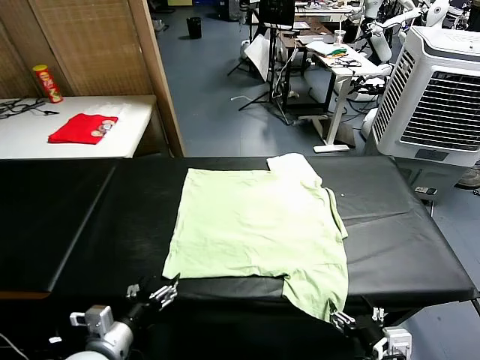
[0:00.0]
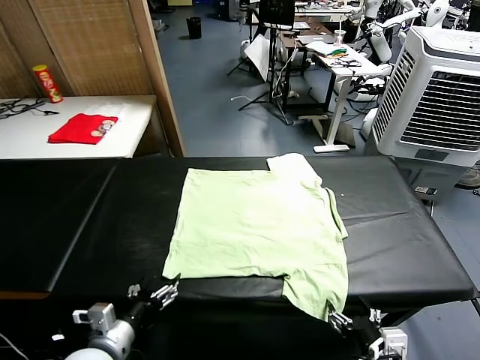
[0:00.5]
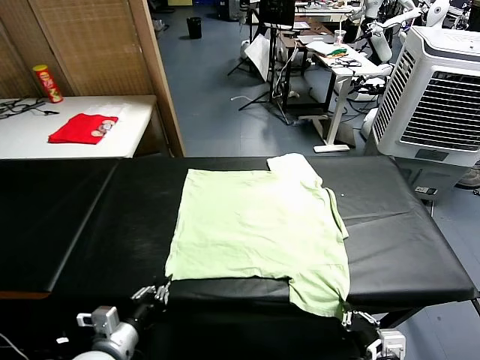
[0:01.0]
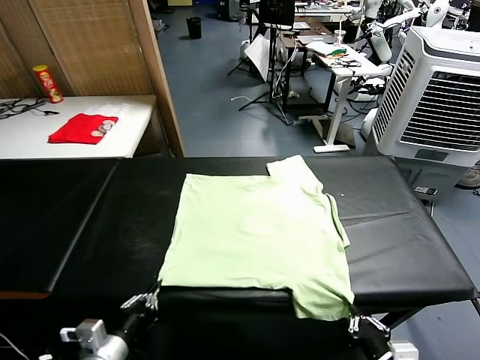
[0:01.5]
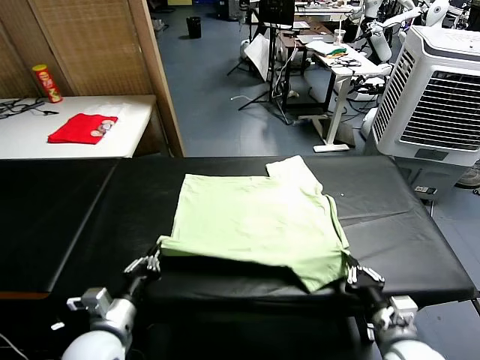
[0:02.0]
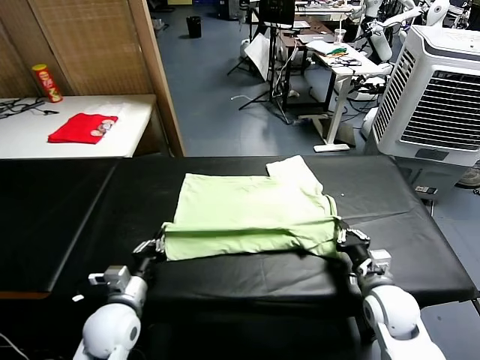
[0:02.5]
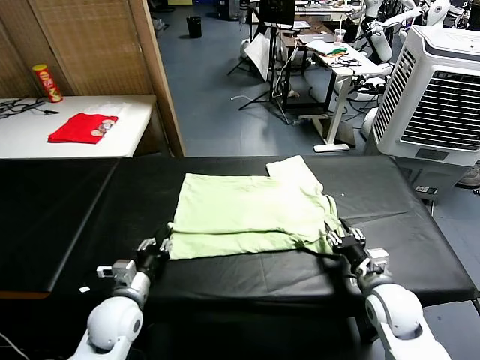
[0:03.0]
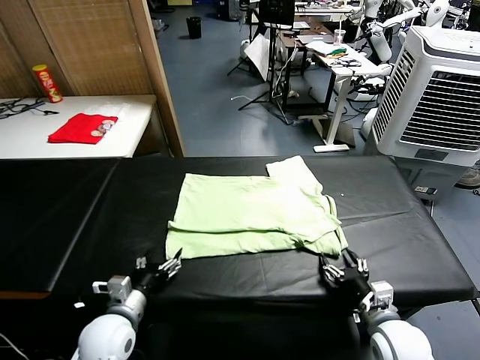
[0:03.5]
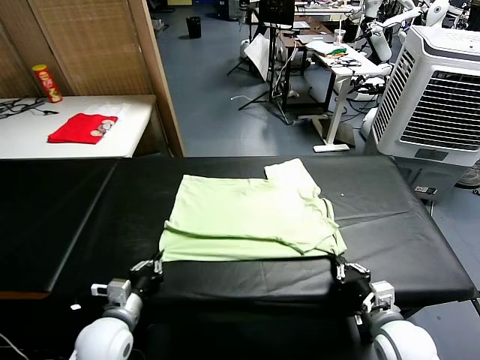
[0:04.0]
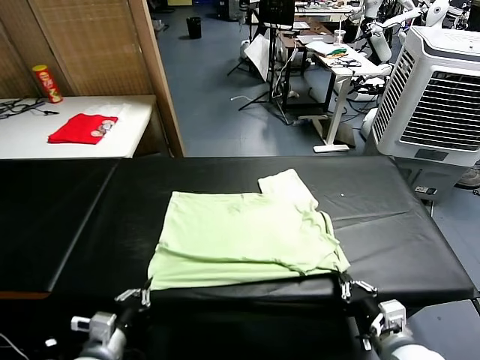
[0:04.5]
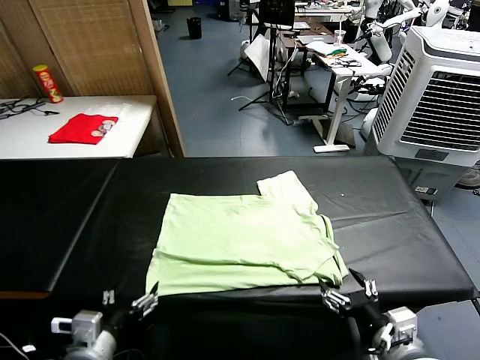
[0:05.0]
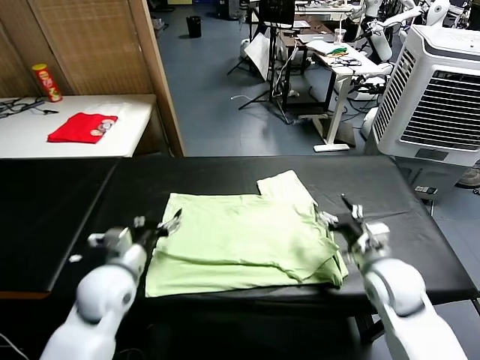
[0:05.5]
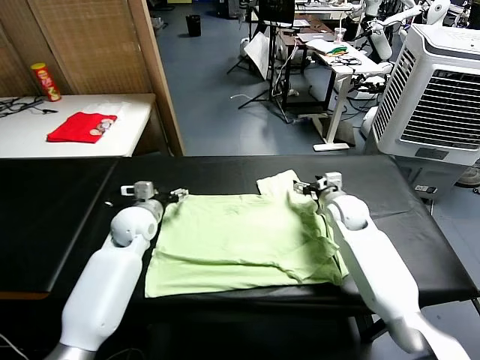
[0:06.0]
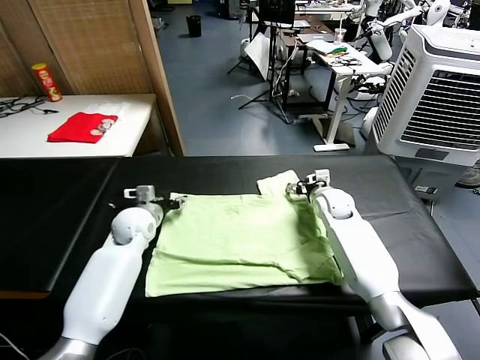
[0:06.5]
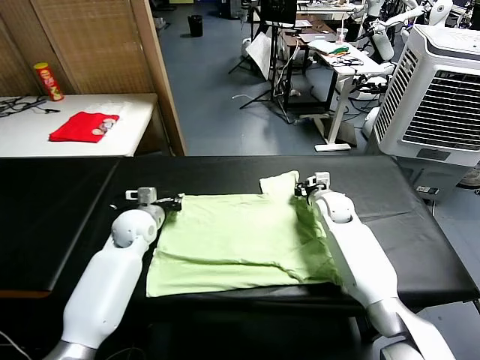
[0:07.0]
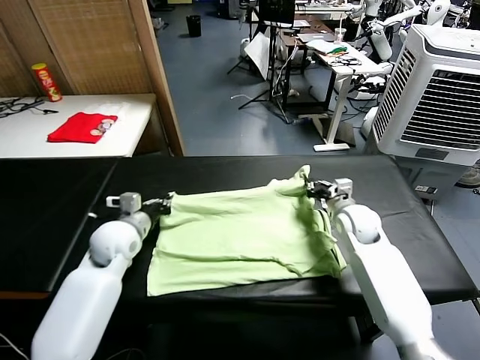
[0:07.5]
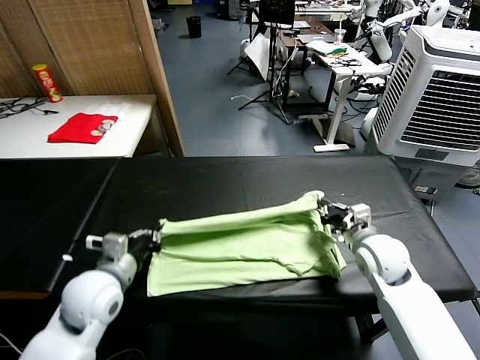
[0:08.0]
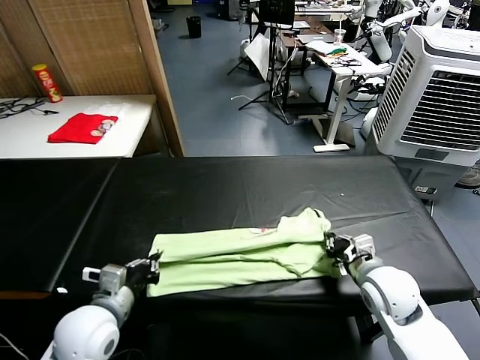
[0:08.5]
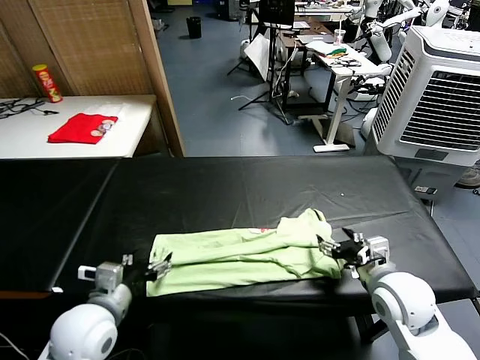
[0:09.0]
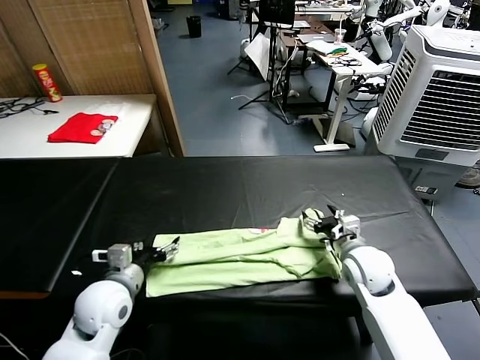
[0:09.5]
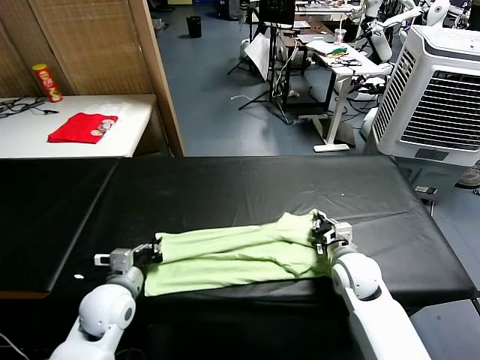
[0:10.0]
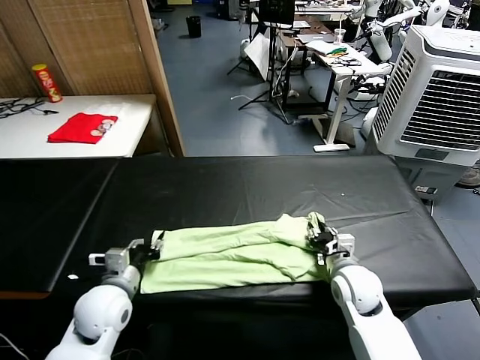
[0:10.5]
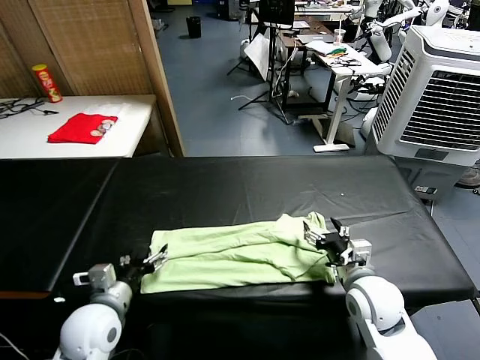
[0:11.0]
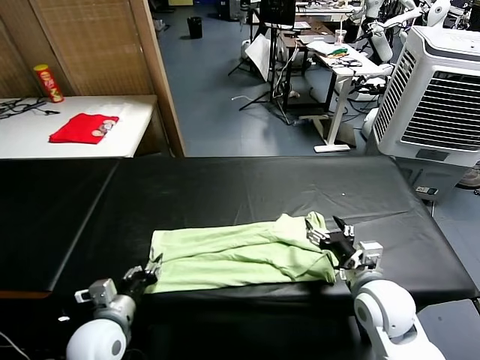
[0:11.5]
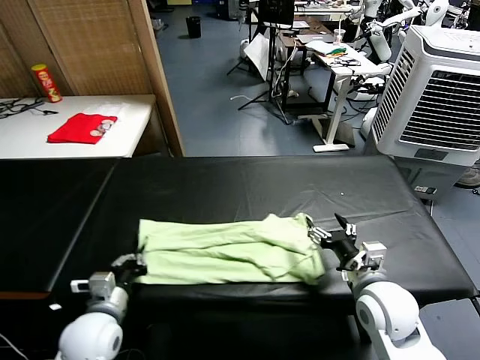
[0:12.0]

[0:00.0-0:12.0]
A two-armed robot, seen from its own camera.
Task of the whole recording: fold and organize the clothes.
Step, 0:00.0 to 0:01.0: use both grippers simultaneously to clamp the lower edge of the clothing fabric.
Step, 0:01.5 to 0:03.0: use both grippers to drag the lower edge of the fabric forward and fold it over the upper edge.
Step, 0:03.5 to 0:04.5: Drag the clothes downward with both gripper.
Step, 0:05.0 to 0:06.5: use both grippers simultaneously to clamp the upper edge of the clothing fabric.
Step, 0:07.0 to 0:08.5: use both grippers to drag the upper edge of the fabric backward and fold it over the lower edge.
Step, 0:09.5 to 0:11.5: use the left gripper to clamp the left edge of the fabric.
0:02.0 to 0:04.0: The left gripper shifts by approximately 5 cm, and opens and closes again. Meanwhile the right gripper opens, then closes once more.
0:04.0 to 0:06.0: The two grippers go roughly 30 cm forward. The right gripper opens its fingers. Meanwhile the left gripper opens its fingers.
0:06.0 to 0:08.0: The two grippers go approximately 20 cm backward. The right gripper closes up; the left gripper closes up.
0:08.0 to 0:10.0: The grippers both shift downward by roughly 5 cm. The left gripper opens and closes again; the right gripper opens and closes again.
0:10.0 to 0:12.0: The left gripper heads backward, covering approximately 5 cm, and opens, then closes again; the right gripper is displaced backward and upward by some 10 cm, and opens.

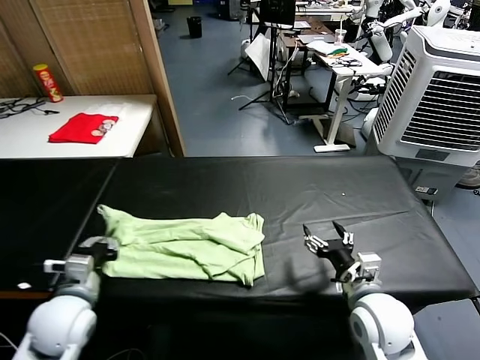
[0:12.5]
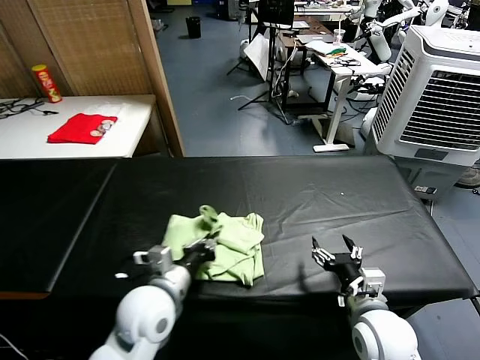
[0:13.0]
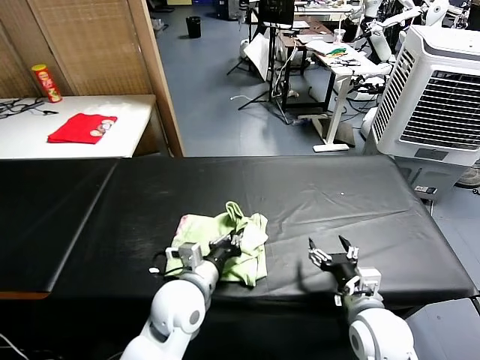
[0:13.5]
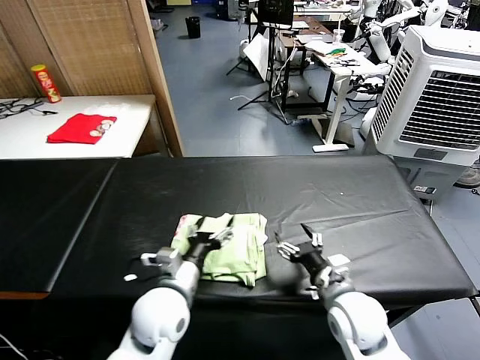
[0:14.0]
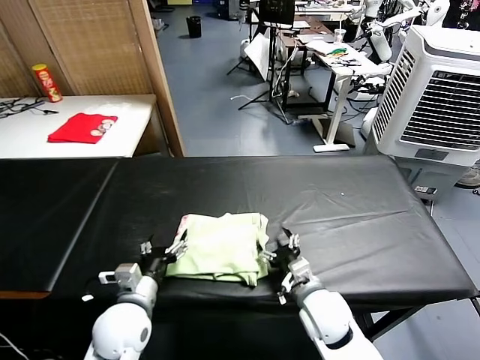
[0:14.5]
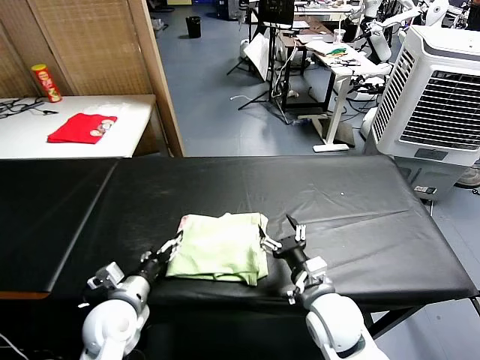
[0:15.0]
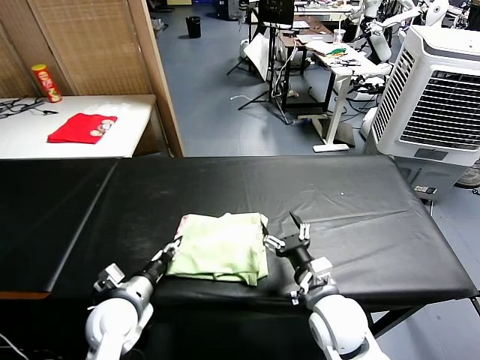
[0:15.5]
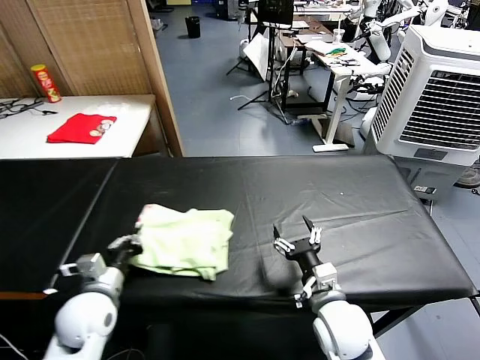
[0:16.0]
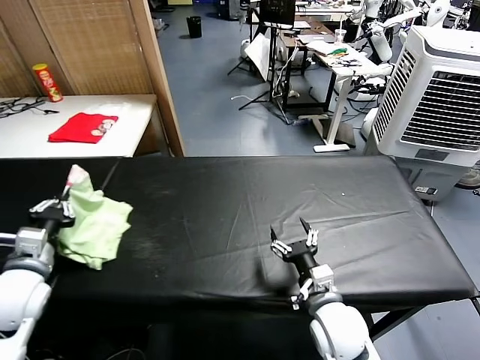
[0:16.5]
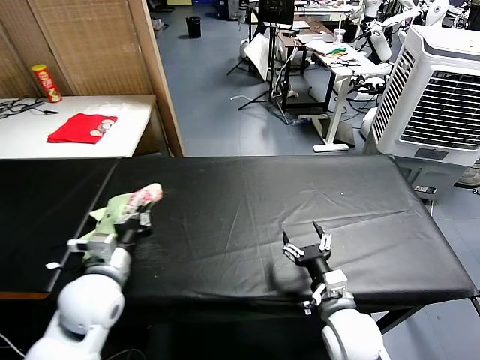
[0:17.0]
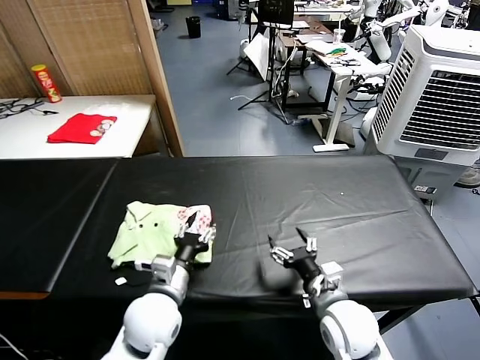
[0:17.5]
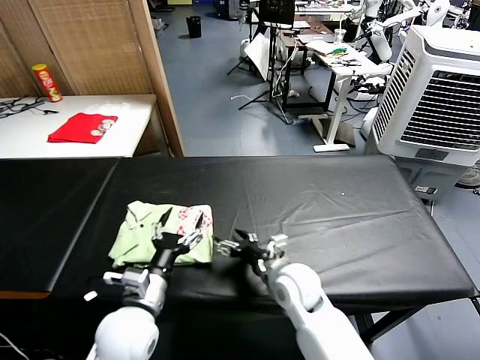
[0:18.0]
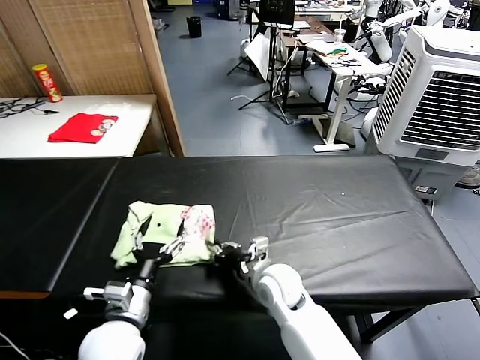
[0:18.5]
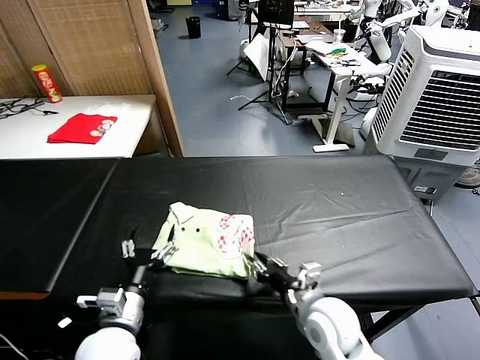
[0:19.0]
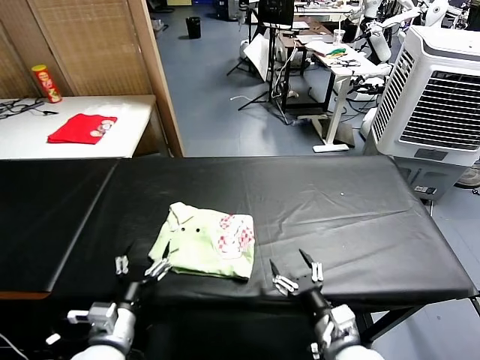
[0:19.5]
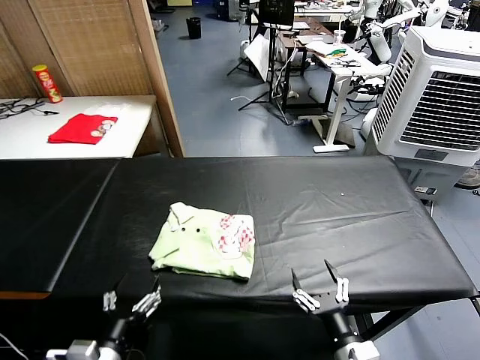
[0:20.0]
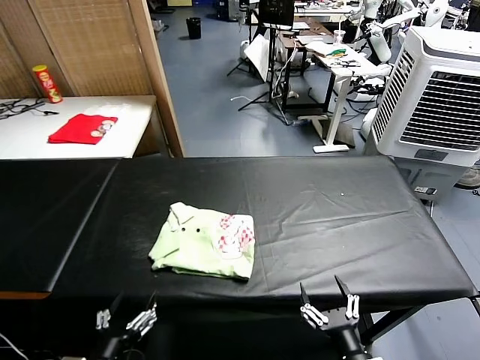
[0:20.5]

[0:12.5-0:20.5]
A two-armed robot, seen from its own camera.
Task of the whole recording: fold and organize the clothes.
Step, 0:14.0 to 0:17.0: Flip the folded clothes over with left gripper.
Step, 0:18.0 to 0:19.0: Drag the clothes to the center of the table.
0:12.5 to 0:14.5: The left gripper travels to the right by about 10 cm, and opens its fingers; the right gripper is displaced to the left and downward by roughly 10 cm.
0:14.5 to 0:16.5: The left gripper travels to the left and upward by some 20 cm, and closes up.
0:16.5 to 0:18.5: The right gripper goes roughly 15 cm to the left and forward, and closes up. Meanwhile the left gripper goes some 20 cm to the right and downward, and opens its fingers.
0:18.5 to 0:20.5: The left gripper heads backward, covering about 15 cm; the right gripper travels backward and to the right by approximately 30 cm, and opens its fingers.

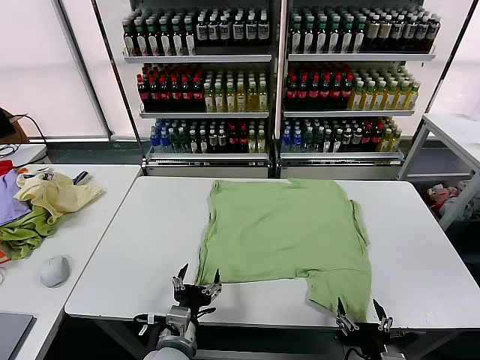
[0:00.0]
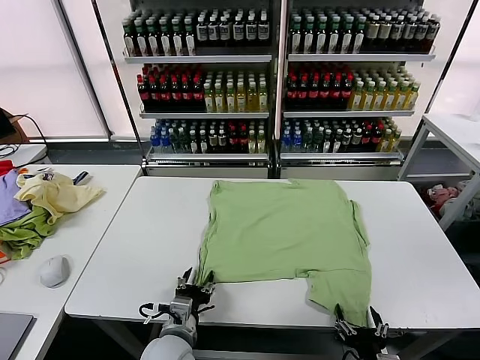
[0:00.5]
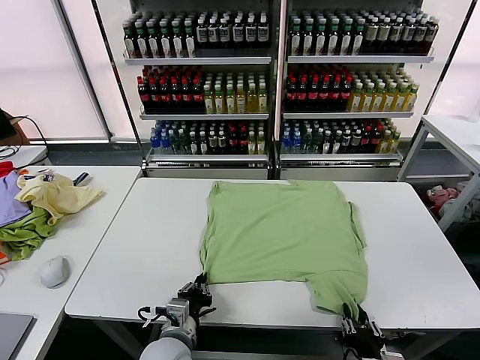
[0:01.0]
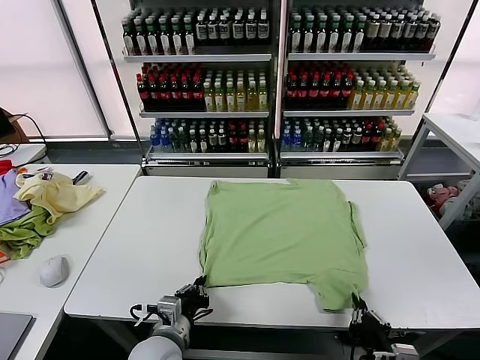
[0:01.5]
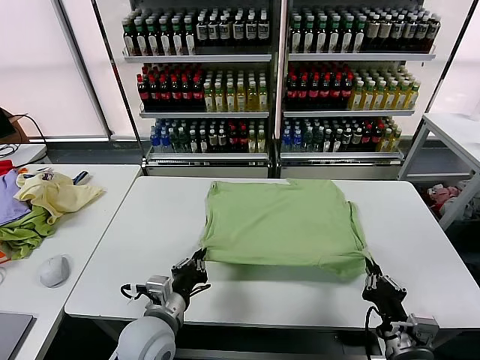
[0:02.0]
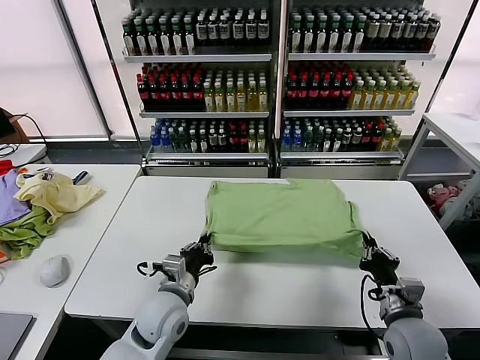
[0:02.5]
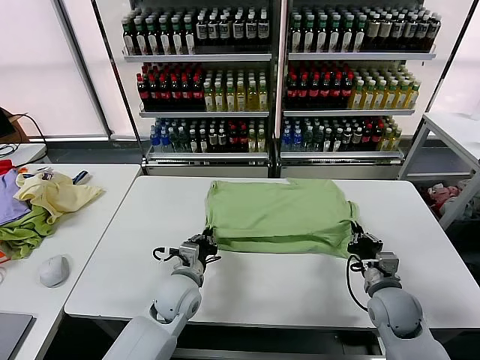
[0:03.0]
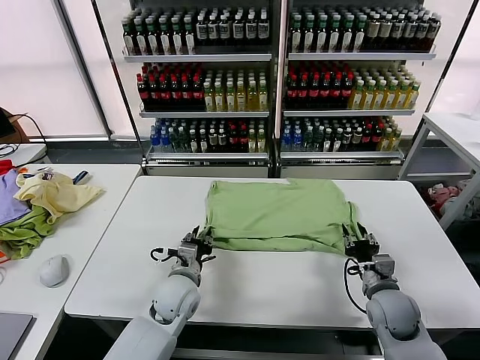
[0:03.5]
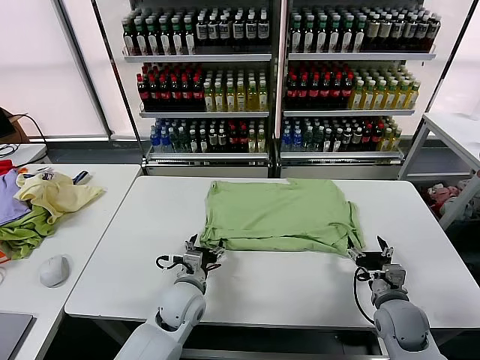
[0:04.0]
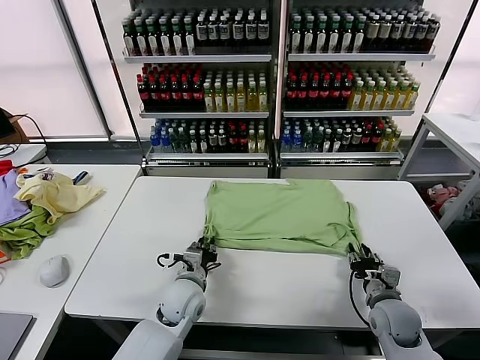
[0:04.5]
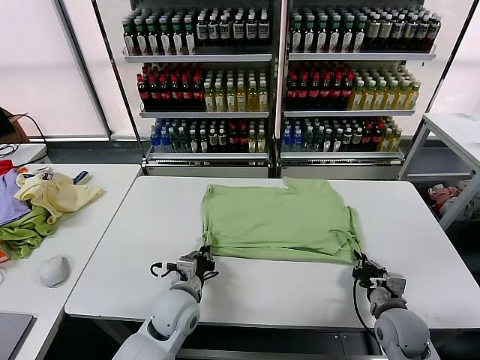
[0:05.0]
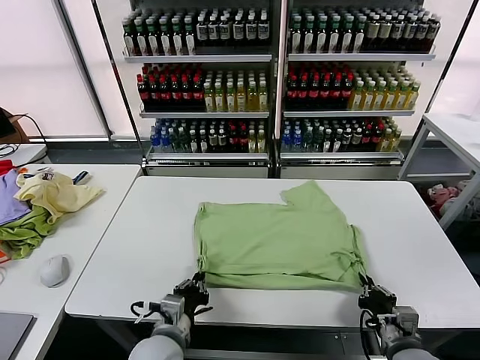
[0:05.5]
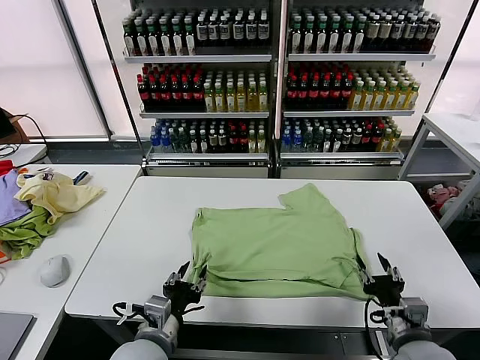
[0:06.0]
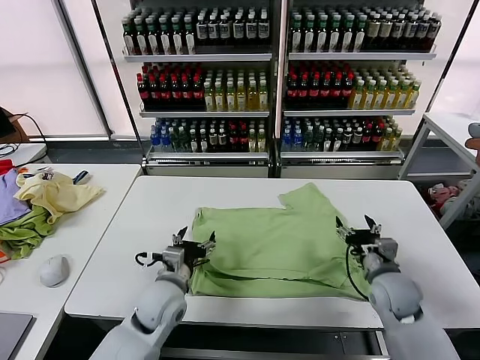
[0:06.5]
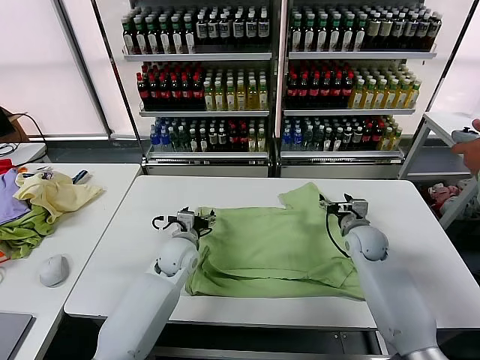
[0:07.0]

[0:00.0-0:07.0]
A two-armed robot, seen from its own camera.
Task of the whole recording: fold and organize the clothes.
Step, 0:00.0 to 0:01.0: use both grippers simultaneously to clamp the lower edge of the clothing fabric.
Step, 0:01.5 to 0:03.5: use both grippers to drag the lower edge of the fabric forward and fold it over the upper edge.
Step, 0:04.0 to 0:05.5: Drag the clothes downward with both gripper.
0:02.0 to 0:03.5: Both grippers move forward, roughly 10 cm. The left gripper opens its fingers; the right gripper opens up.
0:03.5 to 0:05.0: The right gripper closes its fingers, while the left gripper closes its fingers.
0:05.0 to 0:07.0: The right gripper heads forward, covering some 20 cm, and opens. Meanwhile the left gripper is displaced forward by approximately 10 cm, and opens its fingers.
